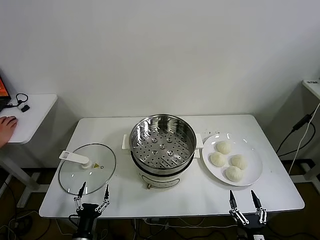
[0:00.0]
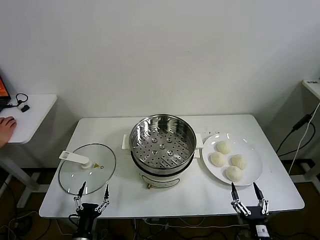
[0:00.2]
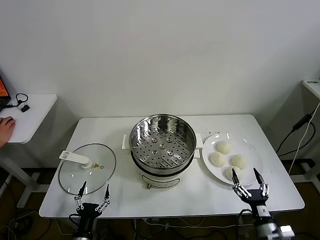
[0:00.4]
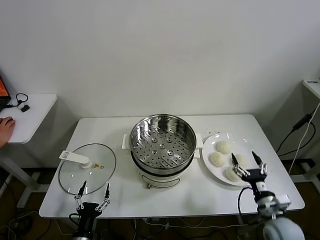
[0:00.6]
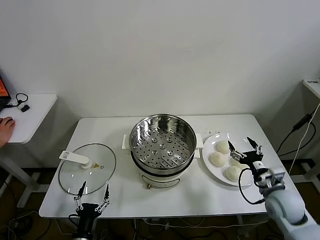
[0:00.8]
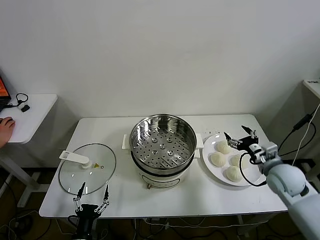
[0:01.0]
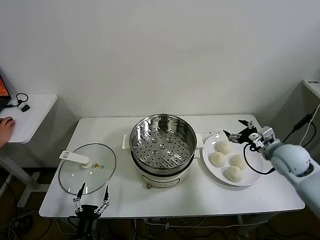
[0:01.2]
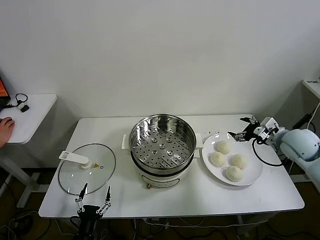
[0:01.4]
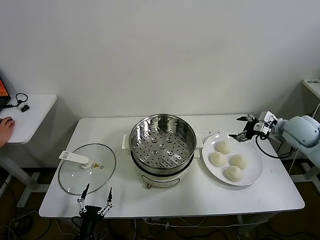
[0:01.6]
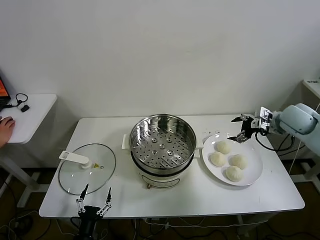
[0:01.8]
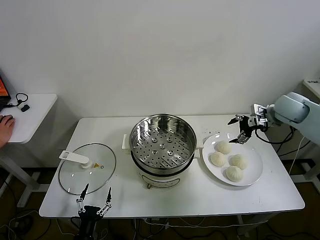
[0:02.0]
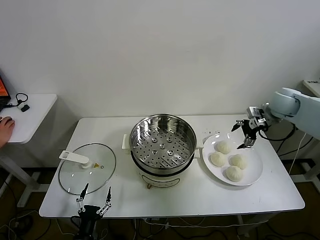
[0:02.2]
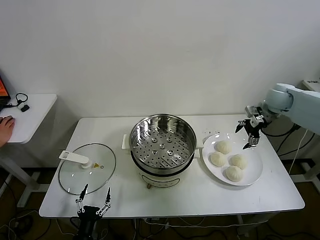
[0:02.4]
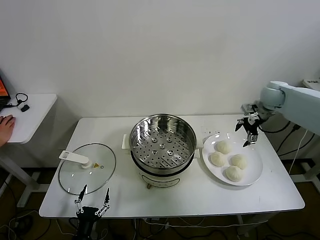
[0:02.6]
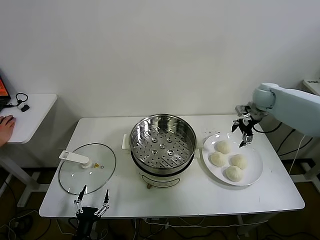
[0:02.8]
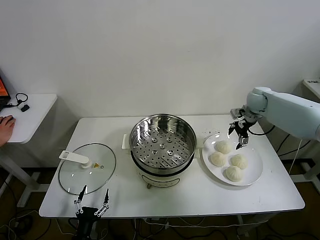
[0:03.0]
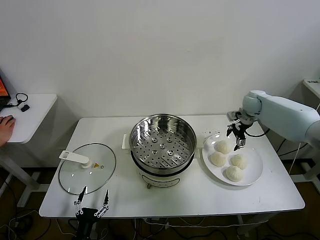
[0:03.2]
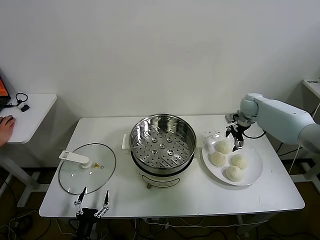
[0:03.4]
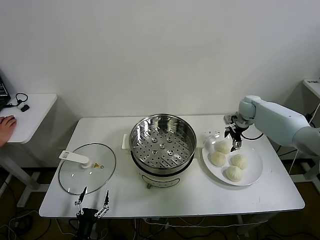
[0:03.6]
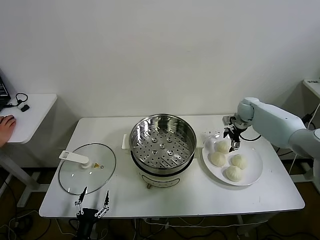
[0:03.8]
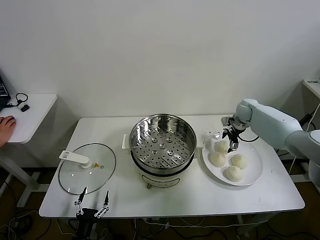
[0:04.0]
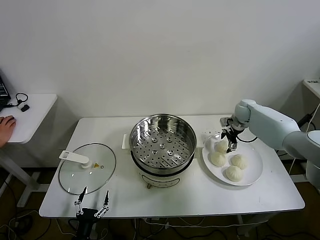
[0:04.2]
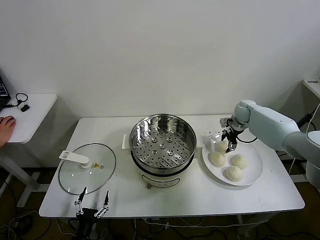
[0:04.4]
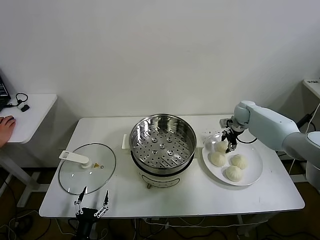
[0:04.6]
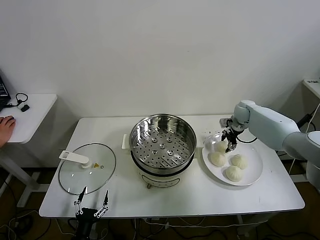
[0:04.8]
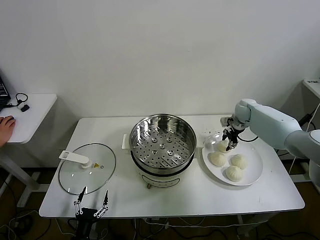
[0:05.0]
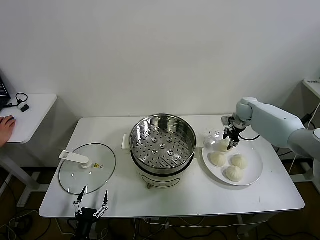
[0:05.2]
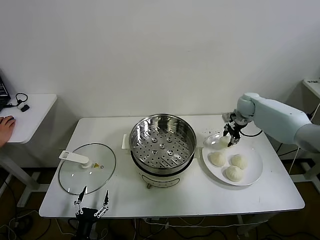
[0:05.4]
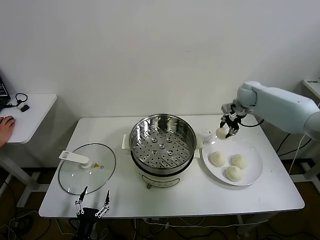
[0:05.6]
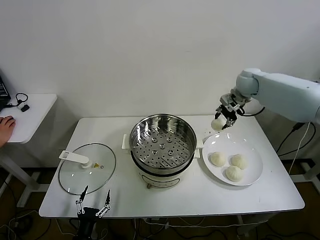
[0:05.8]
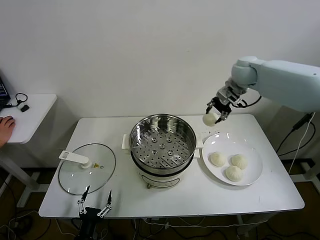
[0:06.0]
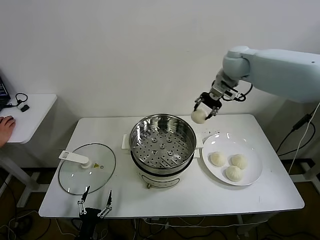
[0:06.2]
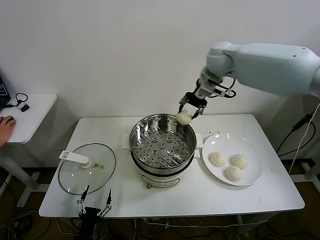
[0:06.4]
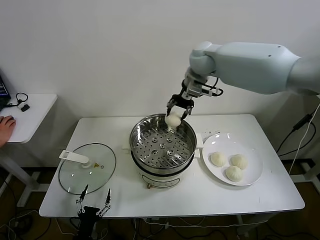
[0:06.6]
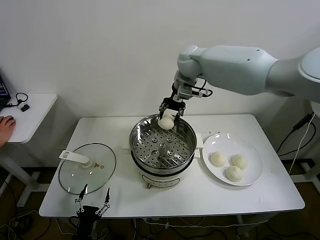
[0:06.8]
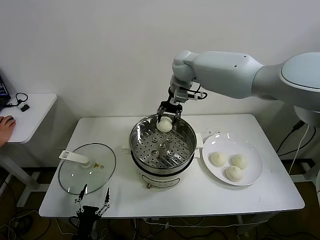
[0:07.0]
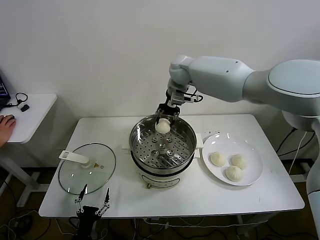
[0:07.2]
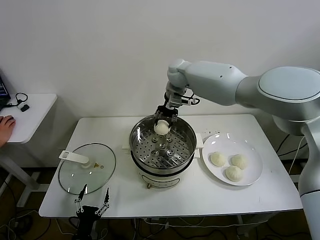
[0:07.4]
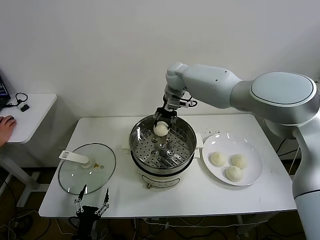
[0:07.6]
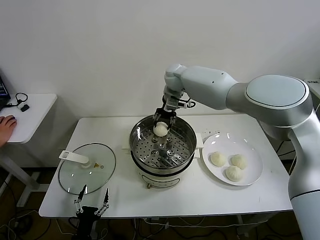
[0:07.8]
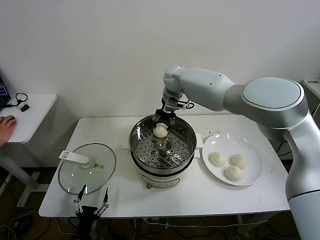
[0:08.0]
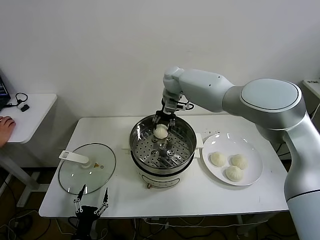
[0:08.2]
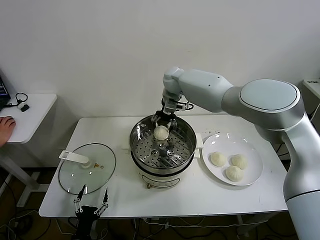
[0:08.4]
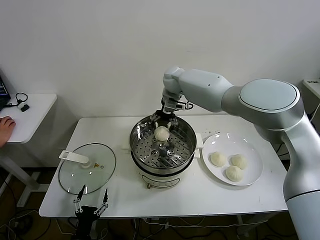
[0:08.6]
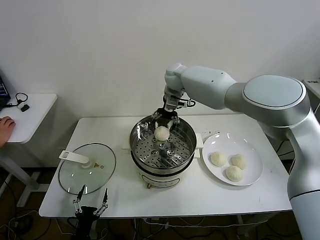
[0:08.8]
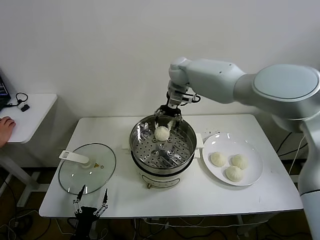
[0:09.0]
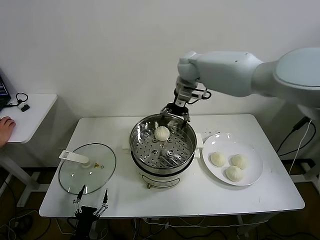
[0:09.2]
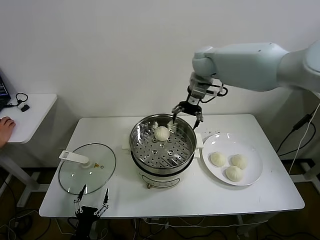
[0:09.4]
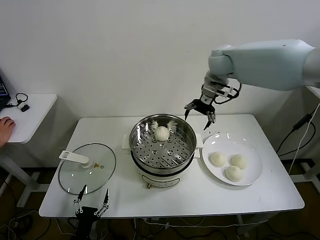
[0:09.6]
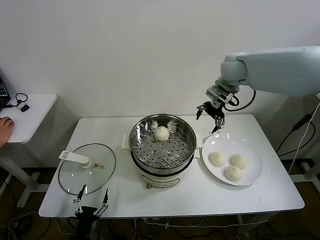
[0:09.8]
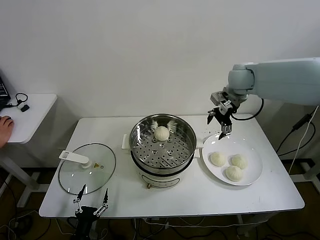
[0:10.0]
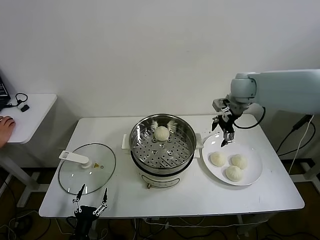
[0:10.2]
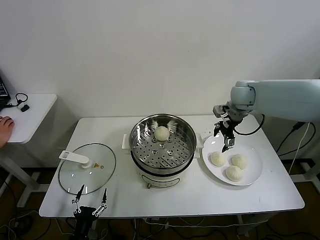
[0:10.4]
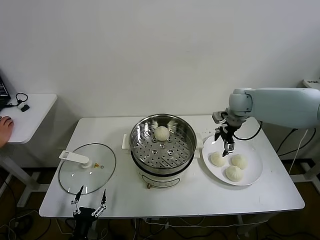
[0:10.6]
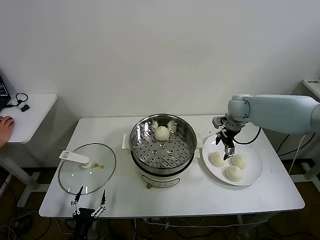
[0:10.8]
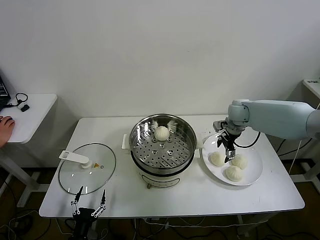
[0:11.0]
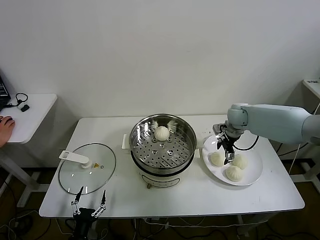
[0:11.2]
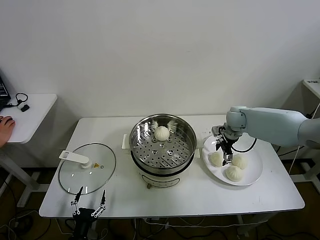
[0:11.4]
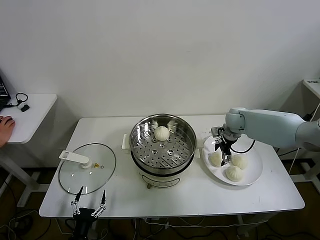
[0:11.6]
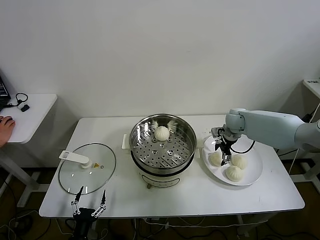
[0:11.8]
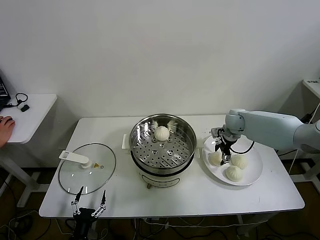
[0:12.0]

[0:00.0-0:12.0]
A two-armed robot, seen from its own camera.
Task of the whole recording: take steamed baozi put them in steamer.
Step, 0:00.0 to 0:04.6: Grasp the baozi in the plate with right gripper.
Step, 0:04.8 to 0:08.4: Place the baozi on the steamer with right gripper.
0:01.6 to 0:03.0: The right gripper heads forward, covering approximately 15 cm.
0:03.0 to 0:04.4: The right gripper shifts some 5 cm downward, and closes its fingers.
0:04.4 to 0:06.0: The right gripper goes some 25 cm upward and to the left.
0:06.0 to 0:07.6: The right gripper goes about 20 cm to the left.
0:07.6 to 0:09.0: The right gripper opens up.
0:09.0 to 0:10.4: The right gripper shifts about 20 cm to the right.
0:10.4 to 0:12.0: The right gripper heads downward, covering about 15 cm.

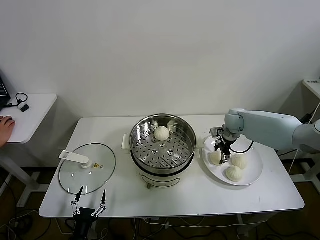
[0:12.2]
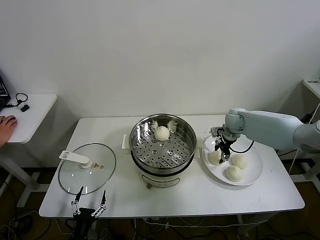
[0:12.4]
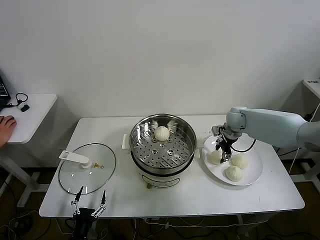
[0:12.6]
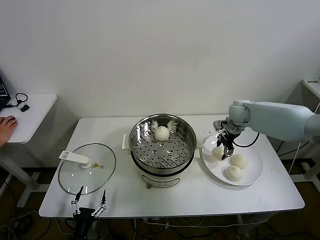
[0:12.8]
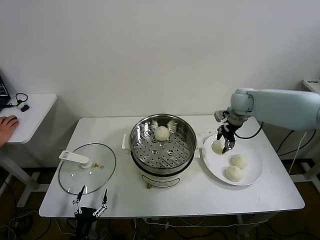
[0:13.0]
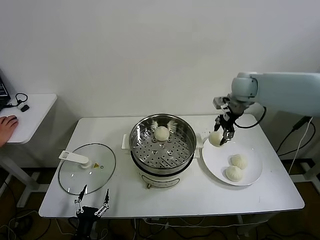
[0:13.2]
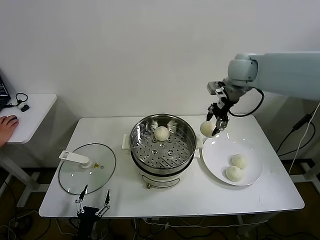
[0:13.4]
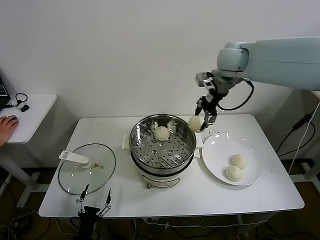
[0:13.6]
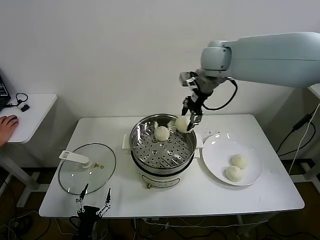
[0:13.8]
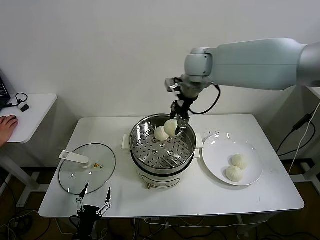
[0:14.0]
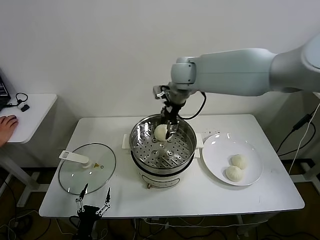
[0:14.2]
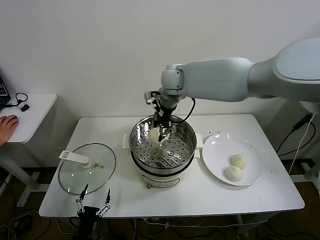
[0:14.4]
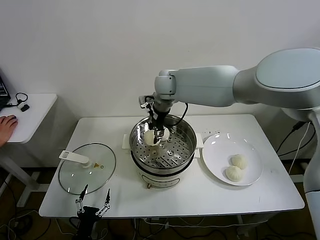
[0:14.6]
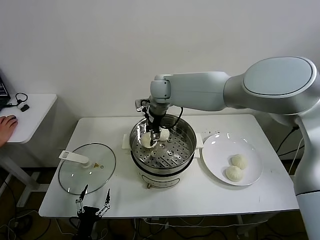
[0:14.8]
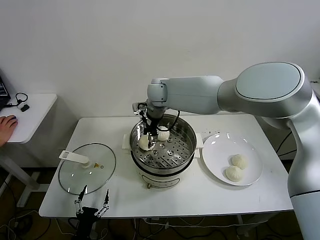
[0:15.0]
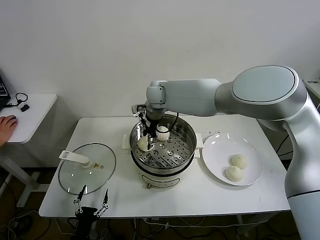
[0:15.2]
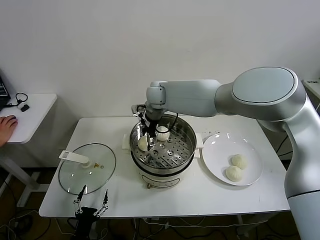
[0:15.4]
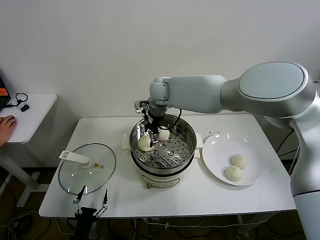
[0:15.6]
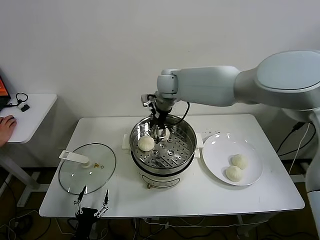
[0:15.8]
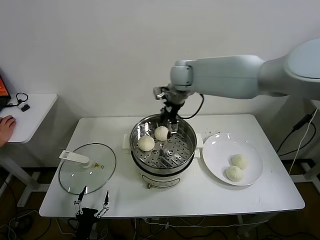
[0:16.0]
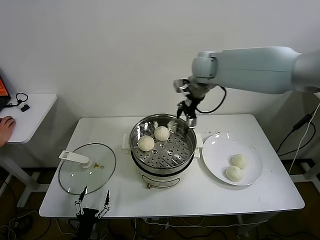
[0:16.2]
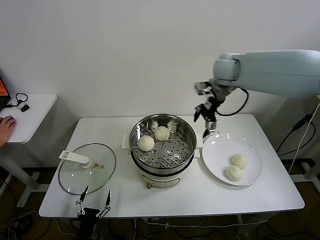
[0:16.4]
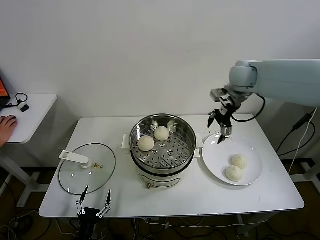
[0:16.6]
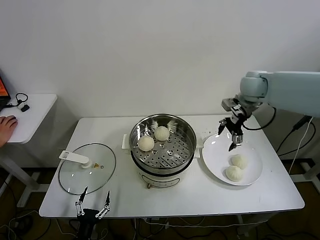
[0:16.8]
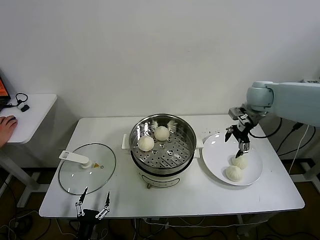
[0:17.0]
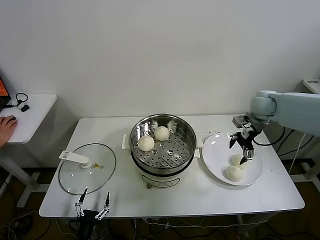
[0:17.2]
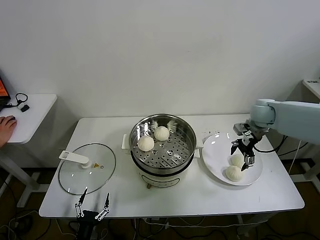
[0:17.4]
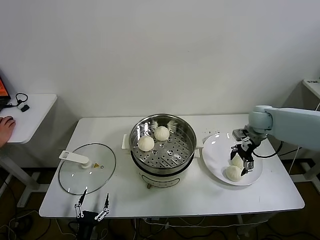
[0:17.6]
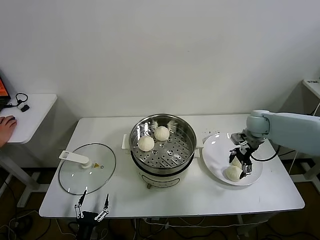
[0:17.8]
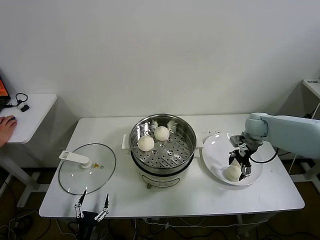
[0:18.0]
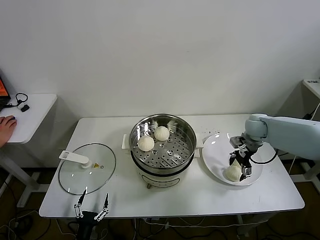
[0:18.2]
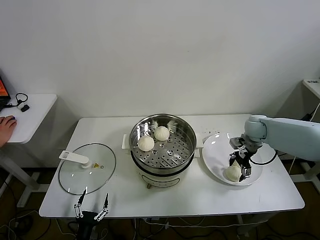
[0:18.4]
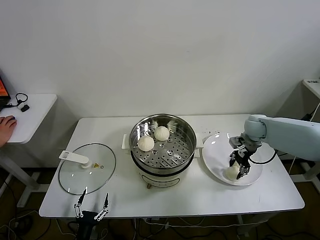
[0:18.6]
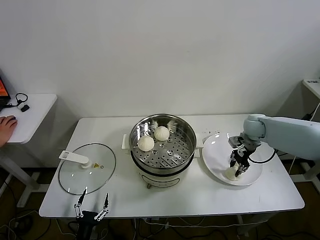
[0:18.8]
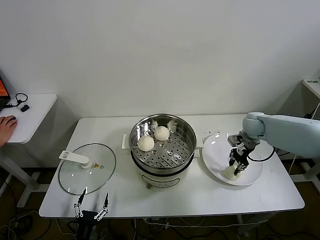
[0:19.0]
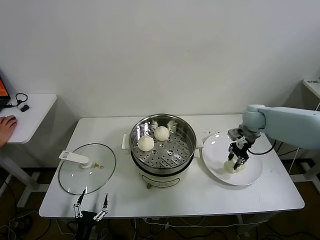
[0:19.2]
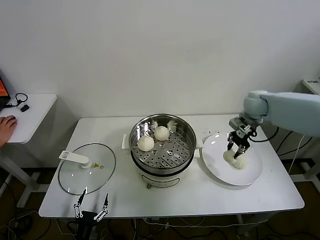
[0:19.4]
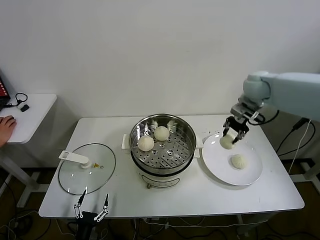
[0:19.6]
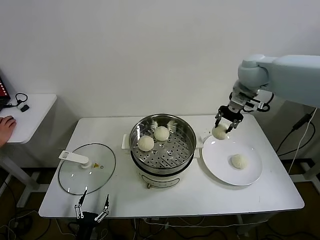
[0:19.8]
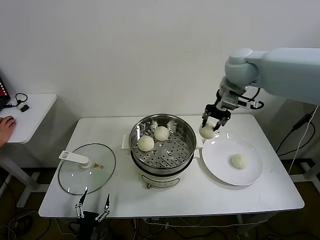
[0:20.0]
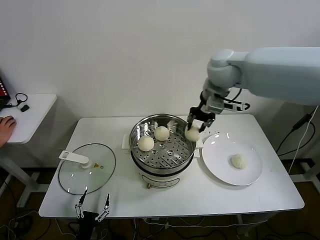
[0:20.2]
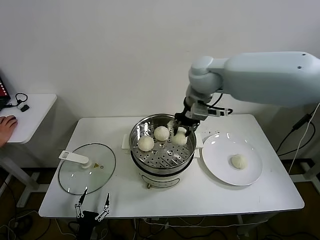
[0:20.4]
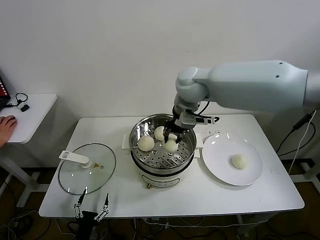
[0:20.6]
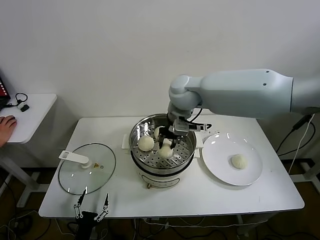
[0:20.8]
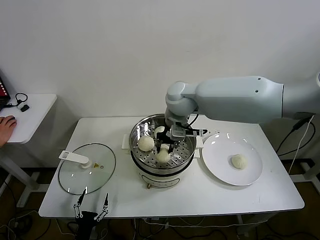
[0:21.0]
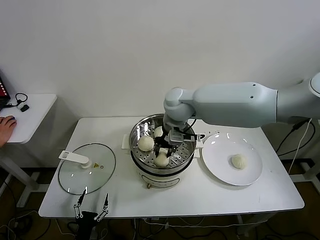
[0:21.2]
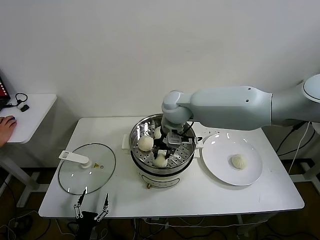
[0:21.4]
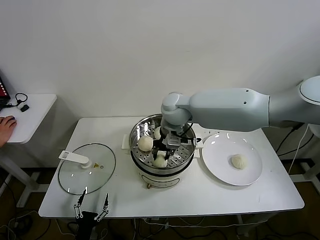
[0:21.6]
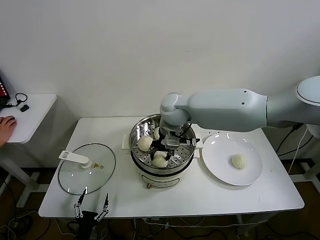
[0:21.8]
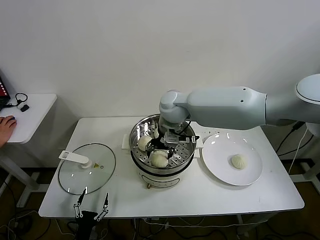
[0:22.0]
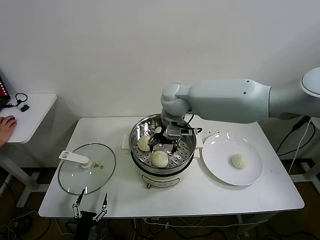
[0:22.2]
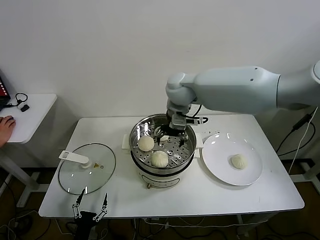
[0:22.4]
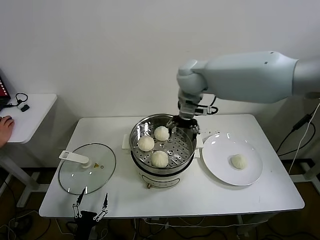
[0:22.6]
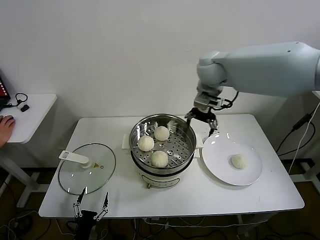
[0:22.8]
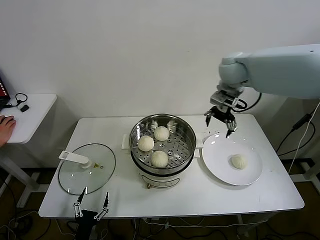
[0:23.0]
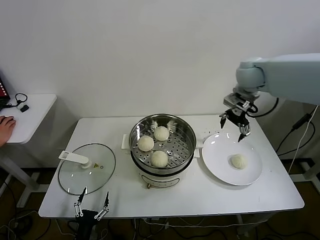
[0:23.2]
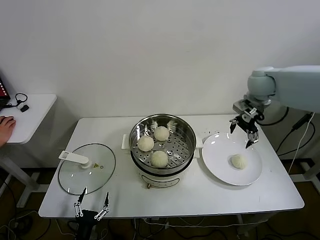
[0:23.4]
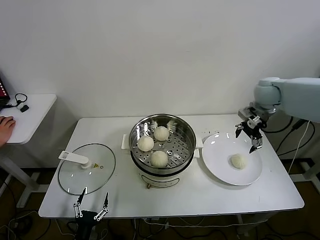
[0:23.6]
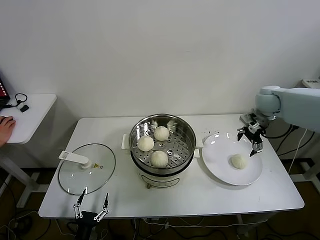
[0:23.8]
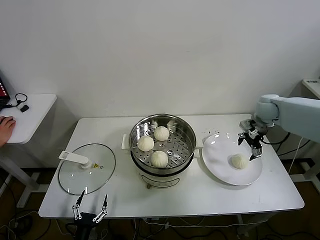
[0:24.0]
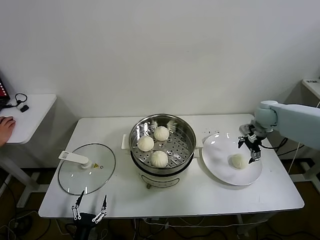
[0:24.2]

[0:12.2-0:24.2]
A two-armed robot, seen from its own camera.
Task of the whole recording: take steamed baozi put them in steamer.
Step, 0:12.6 to 0:15.6: Place the baozi on the steamer with right gripper.
Step, 0:15.8 to 0:18.8: Grasp the baozi in the plate with right gripper.
Step, 0:19.0 to 0:22.0: Place the baozi on the steamer with right gripper.
0:12.2 to 0:13.8: The right gripper heads upward and to the left, covering about 30 cm.
0:13.8 to 0:15.2: The right gripper heads to the left and downward, covering some 20 cm.
0:15.2 to 0:16.6: The right gripper travels to the right by some 30 cm, and opens.
0:16.6 to 0:18.2: The right gripper moves downward and to the right, some 20 cm.
0:18.2 to 0:19.8: The right gripper travels upward and to the left by approximately 25 cm, and closes its fingers.
0:19.8 to 0:21.2: The right gripper moves to the left, roughly 20 cm.
0:21.2 to 0:22.6: The right gripper moves upward, some 5 cm, and opens its fingers.
0:22.6 to 0:24.2: The right gripper moves to the right and downward, about 35 cm.
